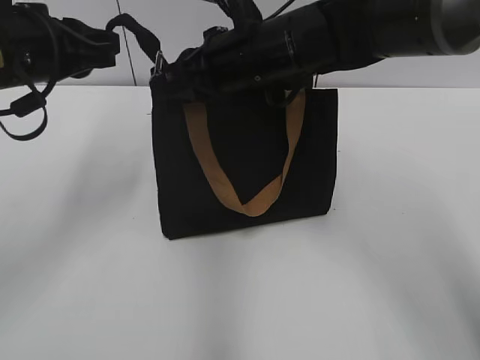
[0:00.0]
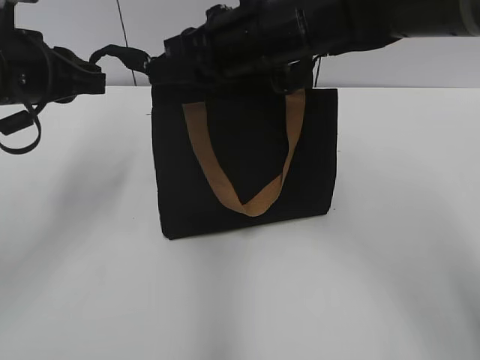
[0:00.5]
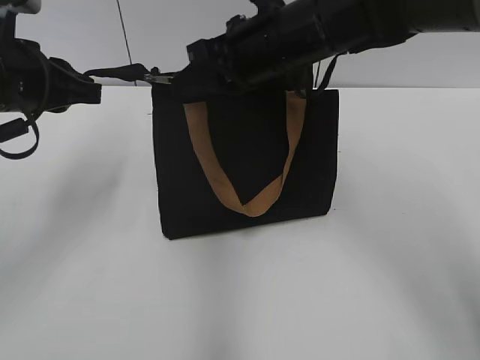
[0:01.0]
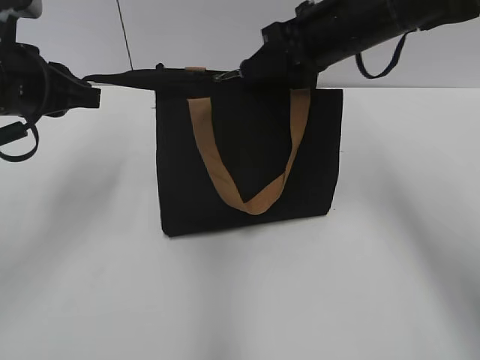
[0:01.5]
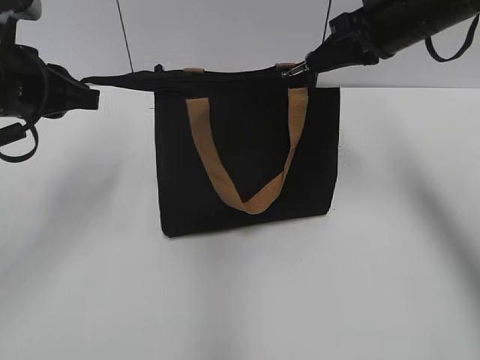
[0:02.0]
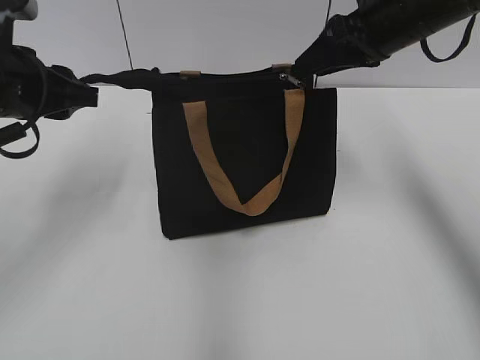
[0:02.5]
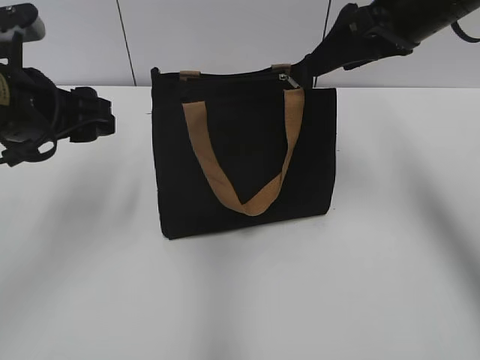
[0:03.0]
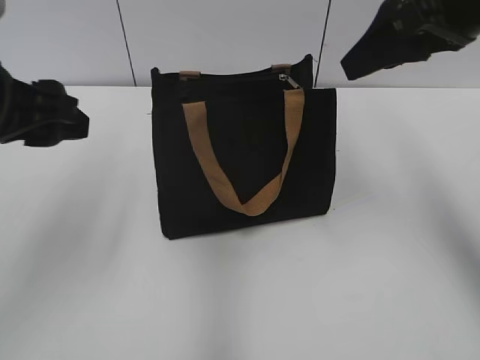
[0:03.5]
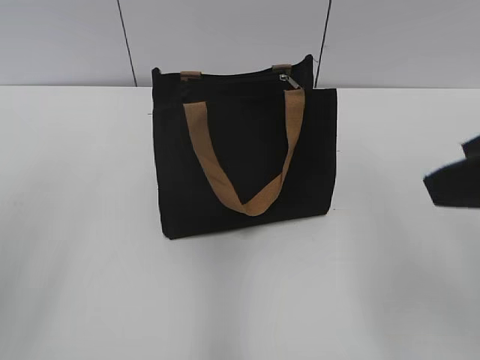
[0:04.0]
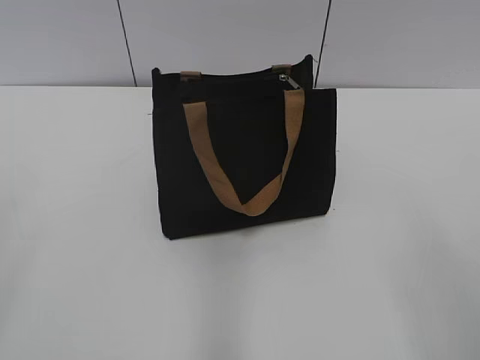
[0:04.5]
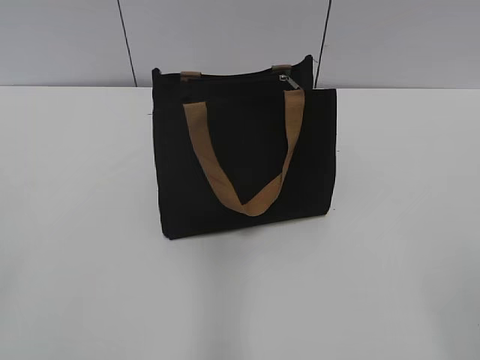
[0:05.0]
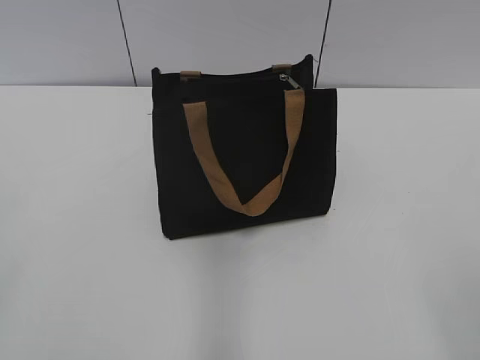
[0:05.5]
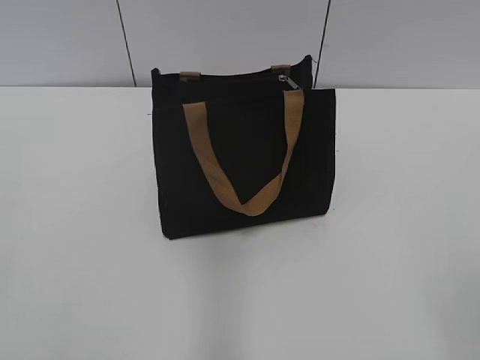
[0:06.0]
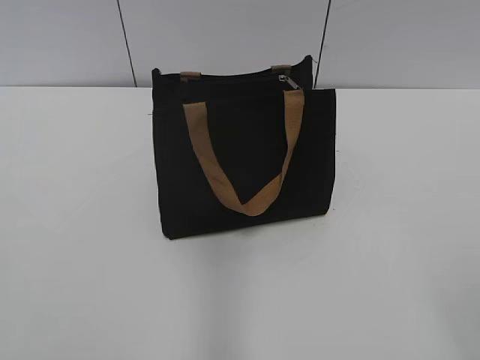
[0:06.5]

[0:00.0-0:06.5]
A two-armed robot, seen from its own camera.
Step, 0:00.0 to 0:02.0: Zip up the bag with your right hand.
0:00.0 to 0:02.0: The right gripper moves to the right, approximately 15 cm.
0:02.0 to 0:04.5: Both grippers travel together backward, approximately 30 cm. The right gripper opens. The left gripper opens its fingers.

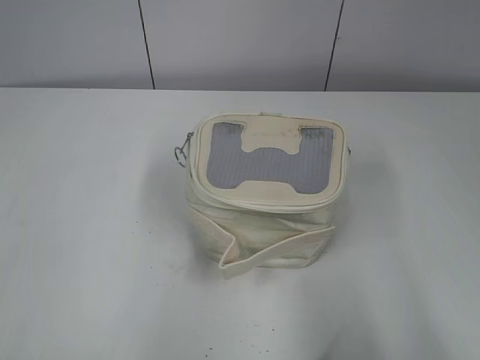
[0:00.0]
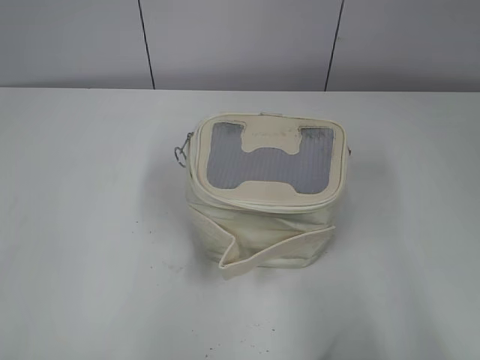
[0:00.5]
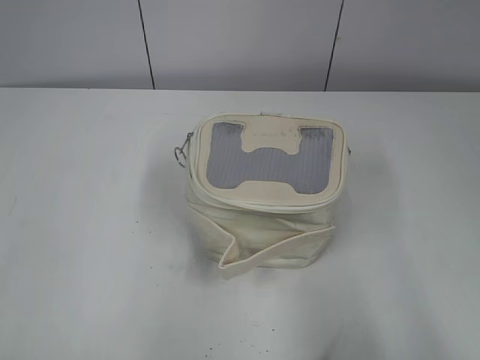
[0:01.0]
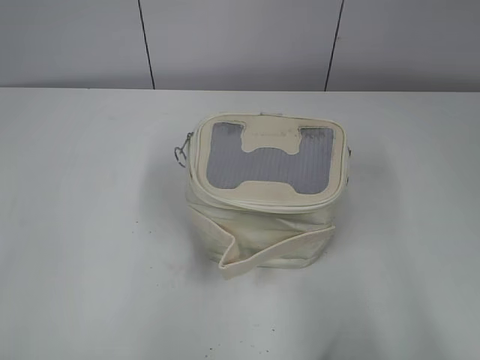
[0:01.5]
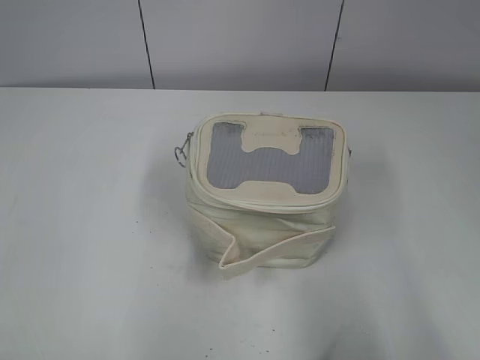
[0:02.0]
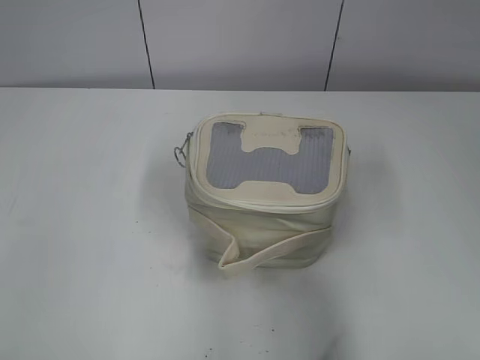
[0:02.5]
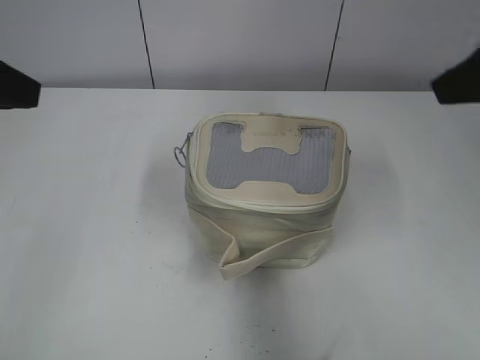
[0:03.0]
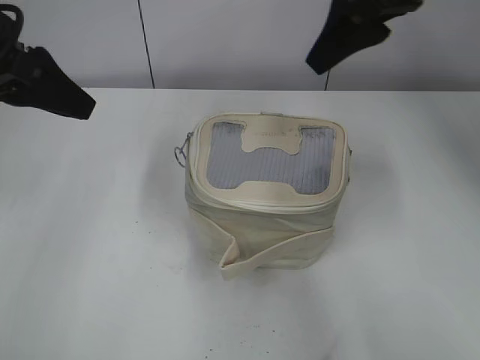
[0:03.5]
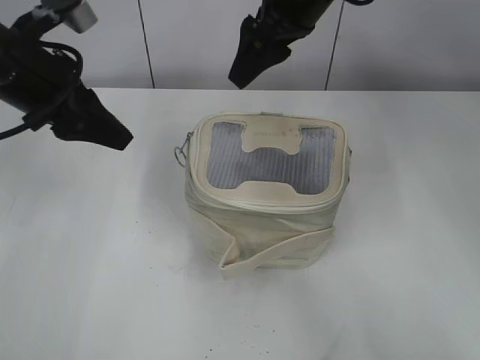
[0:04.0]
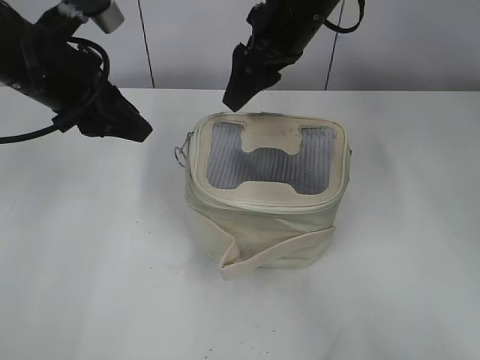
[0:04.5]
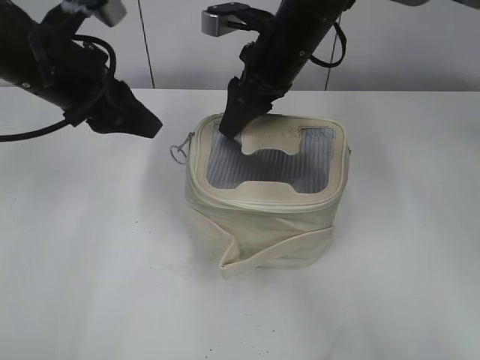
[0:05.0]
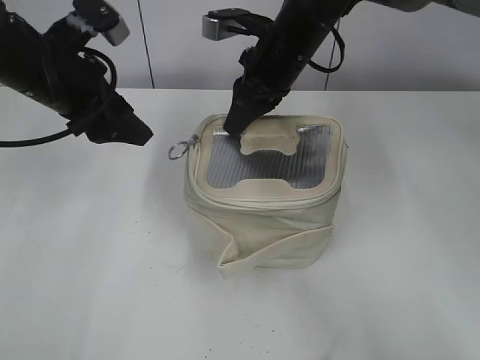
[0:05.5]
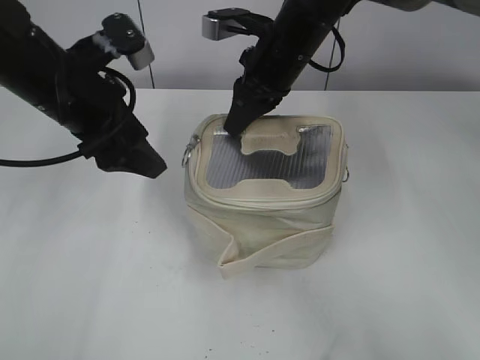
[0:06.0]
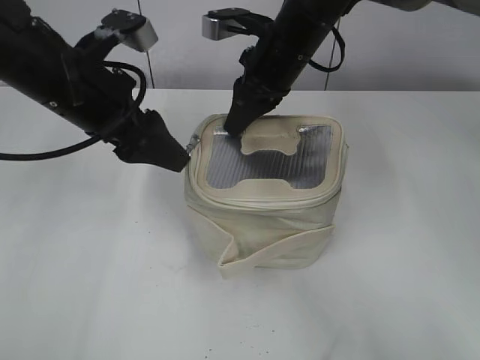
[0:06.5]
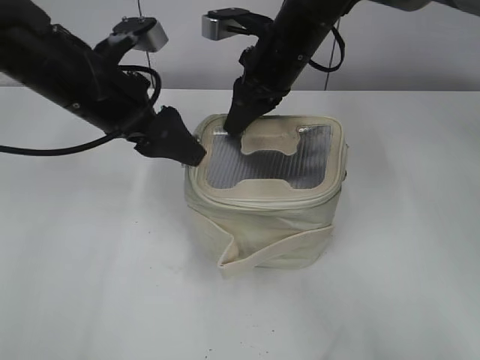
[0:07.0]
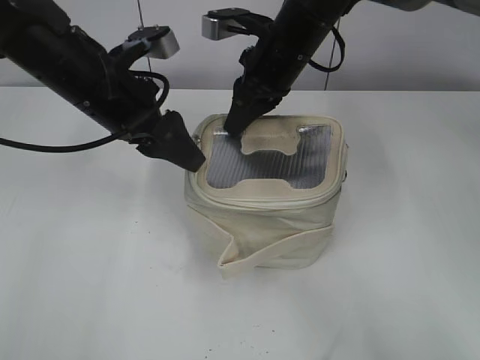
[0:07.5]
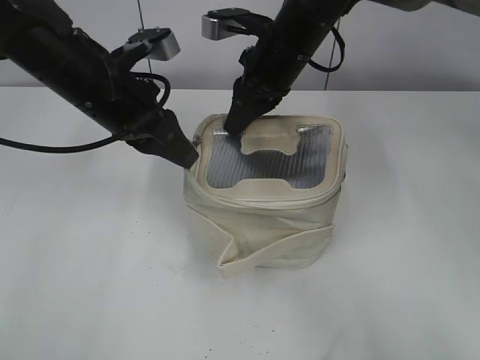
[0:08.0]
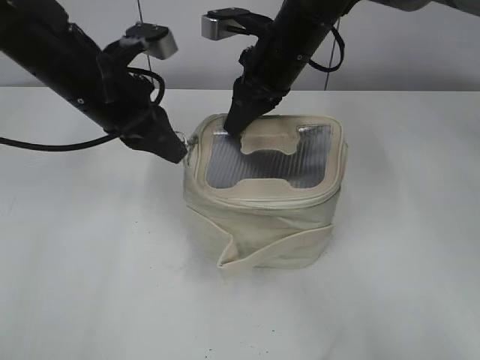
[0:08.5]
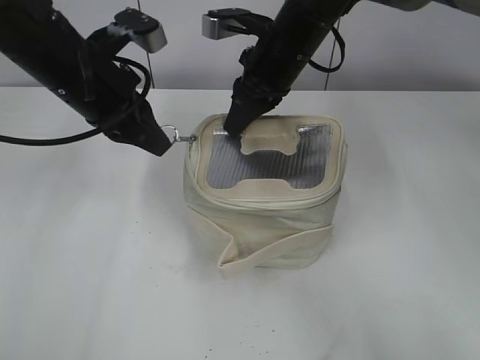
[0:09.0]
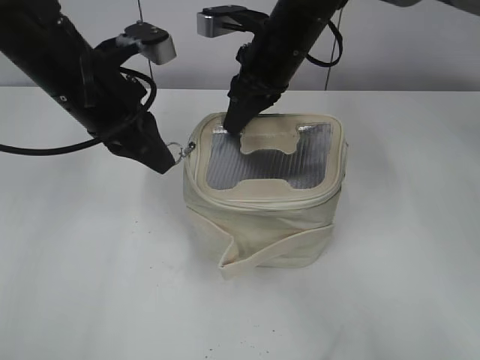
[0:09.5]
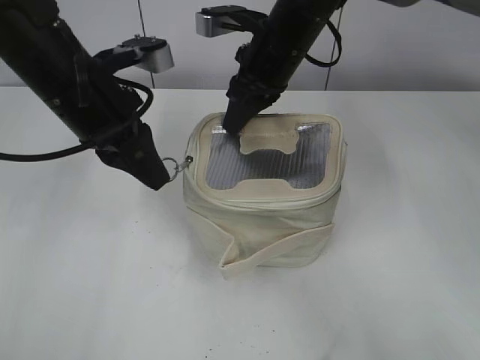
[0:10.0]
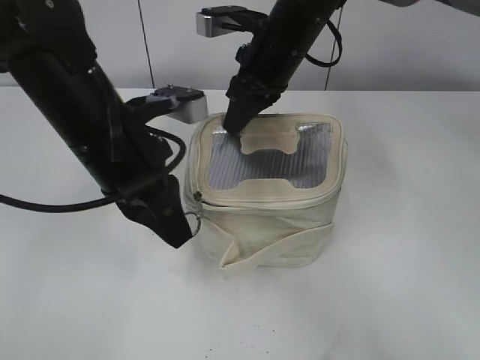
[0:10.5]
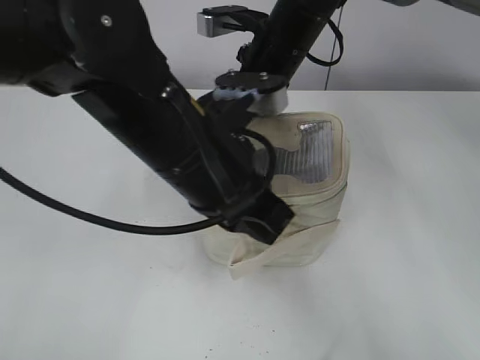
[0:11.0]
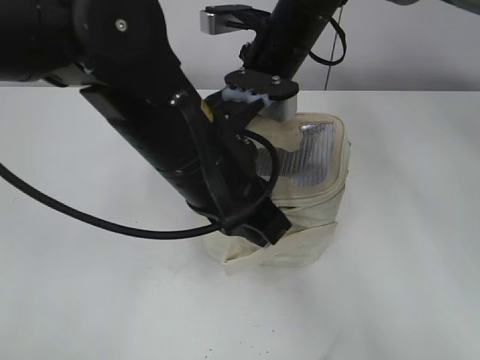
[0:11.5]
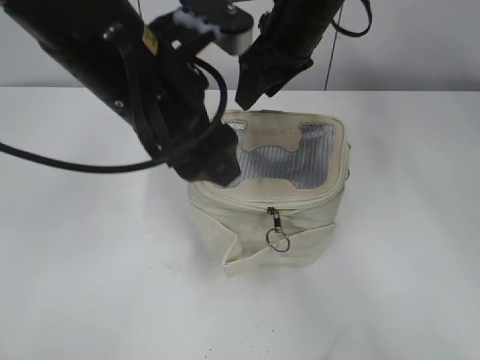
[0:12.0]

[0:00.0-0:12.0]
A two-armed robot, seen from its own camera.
Step, 0:00.0 to 0:11.0: Zip up the bag with your left hand.
Step, 0:11.5 to 0:12.0: Hold the bag with your right hand.
0:02.0 to 0:04.0: The left gripper is displaced forward by some 30 cm; the right gripper moves forward and to the left, roughly 50 cm.
0:04.0 to 0:06.0: The left gripper opens its fingers. Meanwhile the right gripper goes about 10 cm downward, and closes up.
0:06.0 to 0:08.0: The left gripper closes its fingers.
0:08.0 to 0:10.0: The grippers stay close to where they were, moving slightly.
0:10.0 to 0:12.0: The left gripper goes some 10 cm to the right, backward and upward, and opens its fingers. Meanwhile the right gripper opens its fingers.

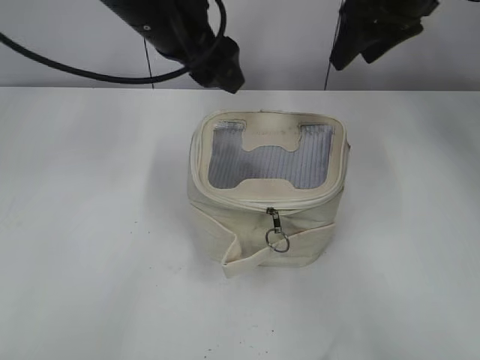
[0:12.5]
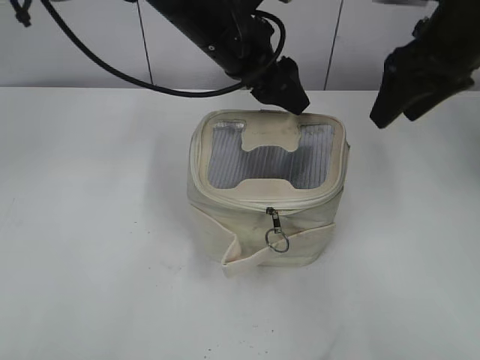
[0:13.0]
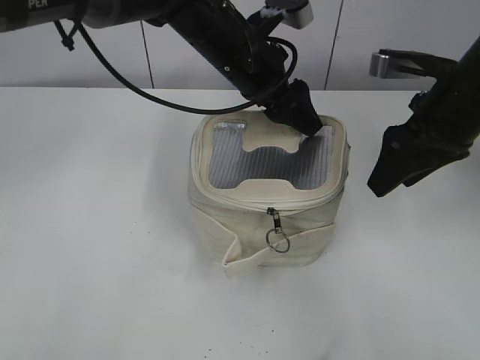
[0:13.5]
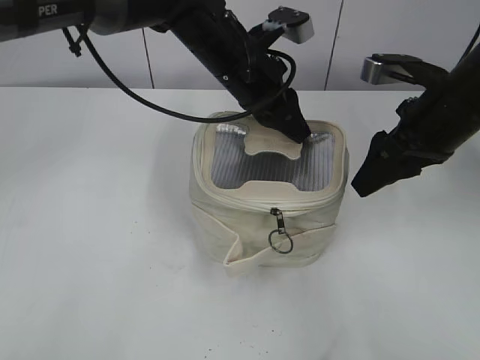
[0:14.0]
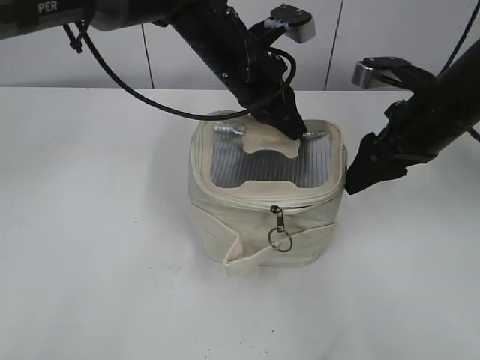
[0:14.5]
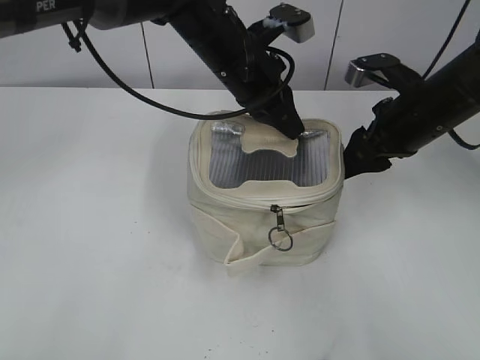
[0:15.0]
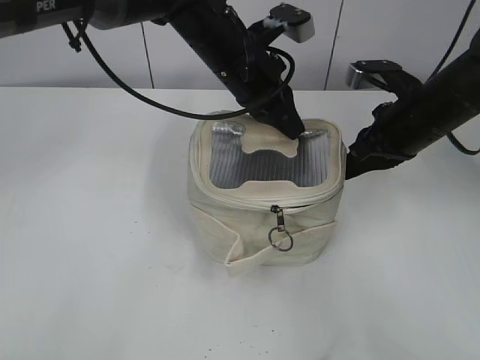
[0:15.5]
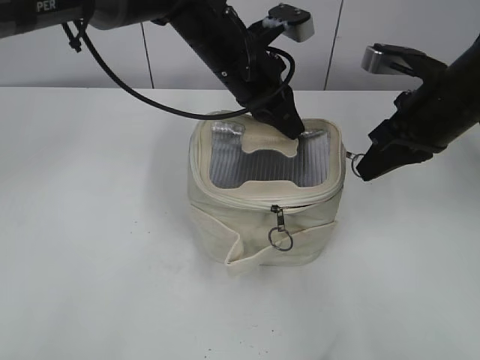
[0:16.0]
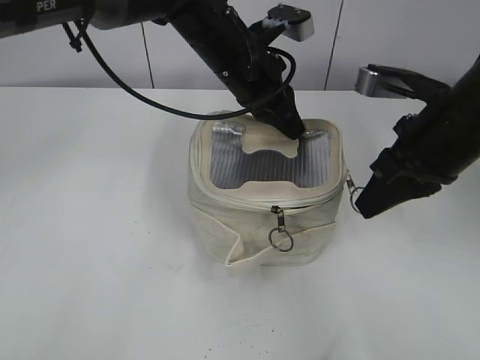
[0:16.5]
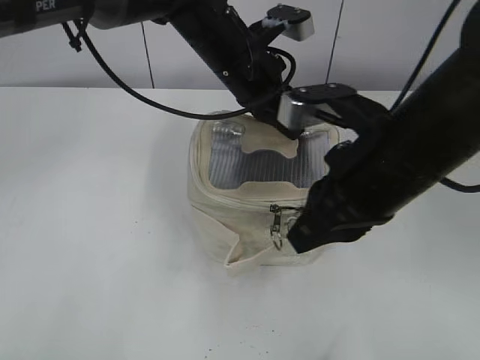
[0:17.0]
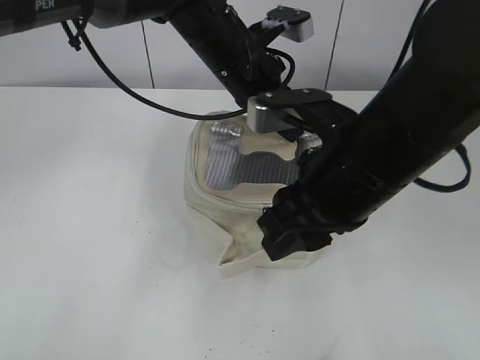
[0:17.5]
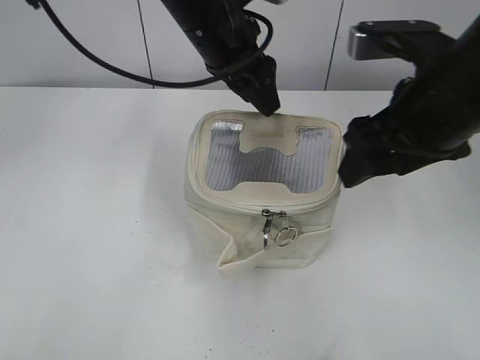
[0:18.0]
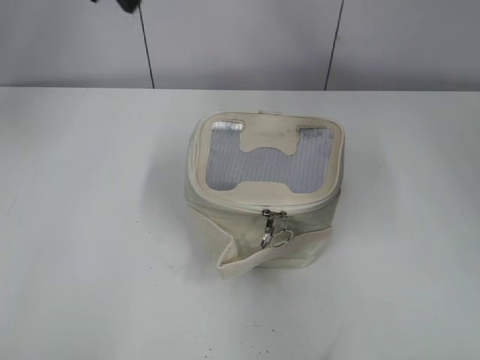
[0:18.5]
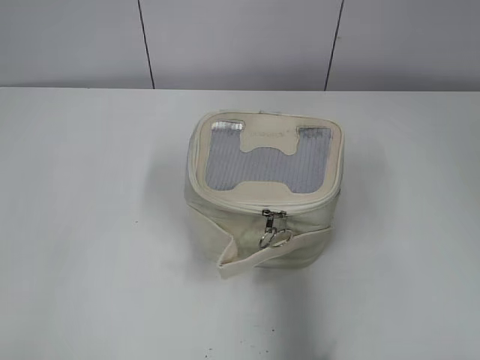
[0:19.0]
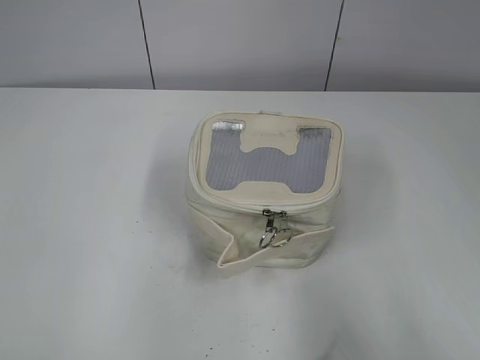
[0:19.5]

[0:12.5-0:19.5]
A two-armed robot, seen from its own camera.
Step, 0:12.5 to 0:17.0: Zip up the bag with your right hand.
Step, 0:17.5 to 0:18.0: Hold the bag with your left hand.
0:12.5 to 0:14.5: The right gripper is displaced downward and backward by about 15 cm. The left gripper is displaced downward and to the right by some 10 cm, and closes up.
0:14.5 to 0:16.0: The right gripper closes.
0:16.0 to 0:17.5: The right gripper moves to the left and backward, some 15 cm, and opens up.
0:17.5 to 0:19.5: The left gripper moves backward and to the left, approximately 50 cm, and opens its fingers; the right gripper shifts some 30 cm to the right and backward, and opens.
